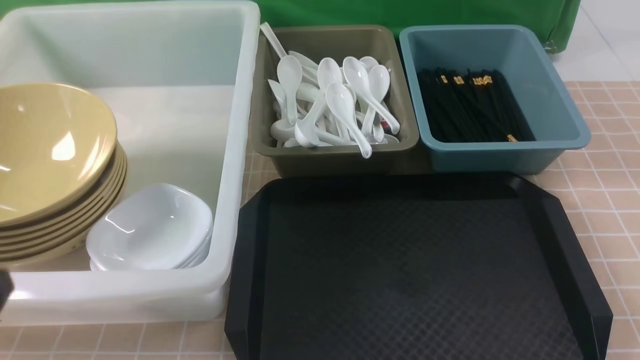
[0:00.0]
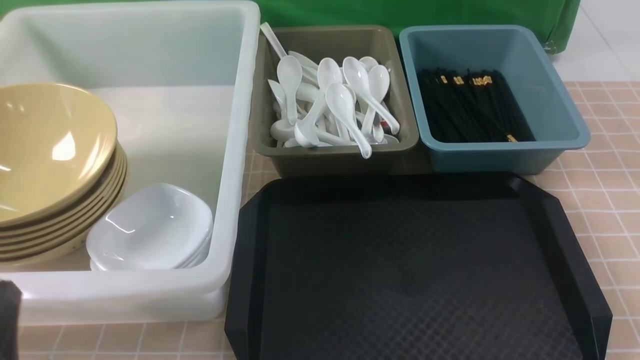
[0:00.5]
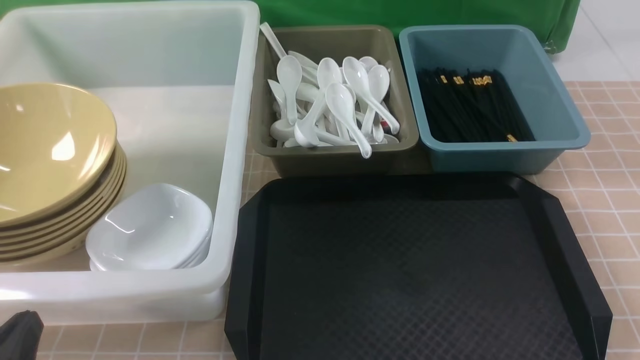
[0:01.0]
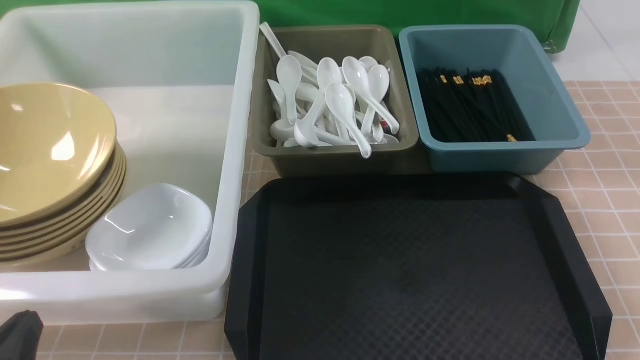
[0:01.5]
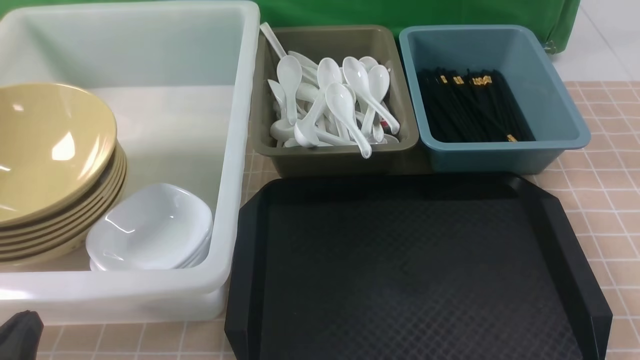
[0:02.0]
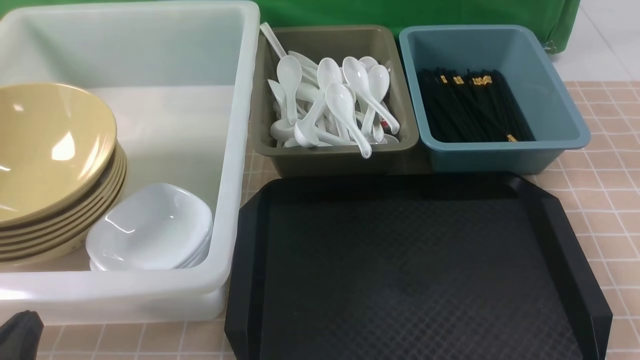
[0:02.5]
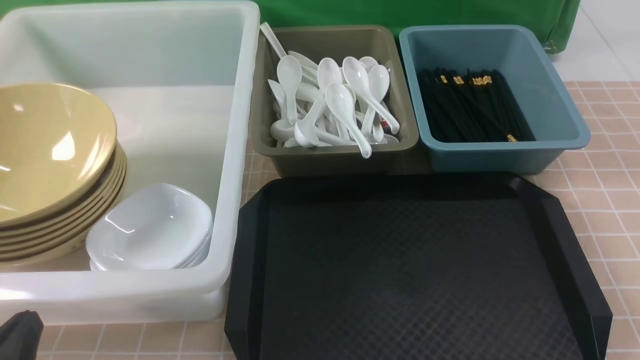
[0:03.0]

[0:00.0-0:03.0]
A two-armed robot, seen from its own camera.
Task of the whole recording: on brown table put chopsticks spoon bowls plates into blue grey white boxes.
0:00.0 to 0:01.5: The left gripper is displaced downward by some 10 cm.
0:01.5 to 0:03.0: Both grippers stay about where they are.

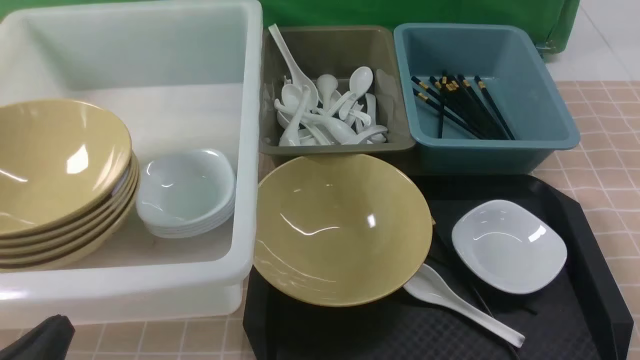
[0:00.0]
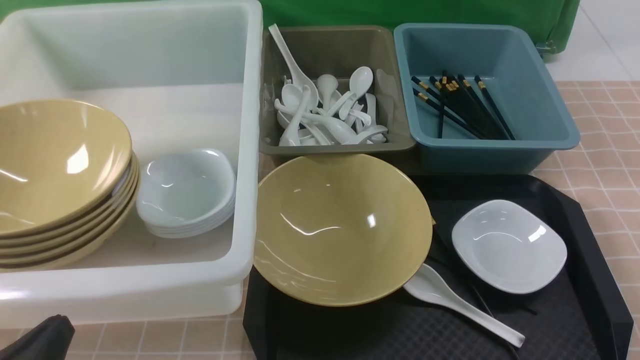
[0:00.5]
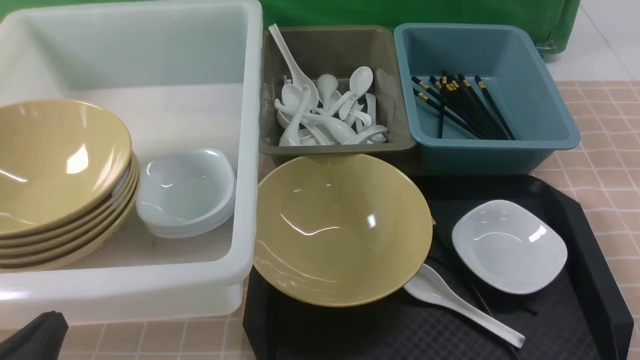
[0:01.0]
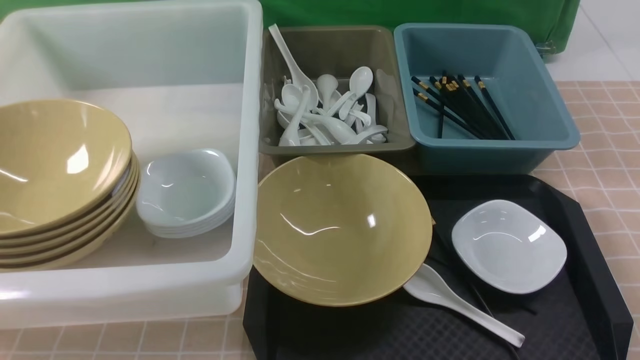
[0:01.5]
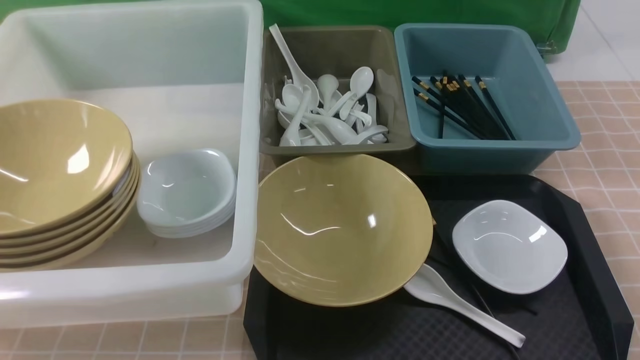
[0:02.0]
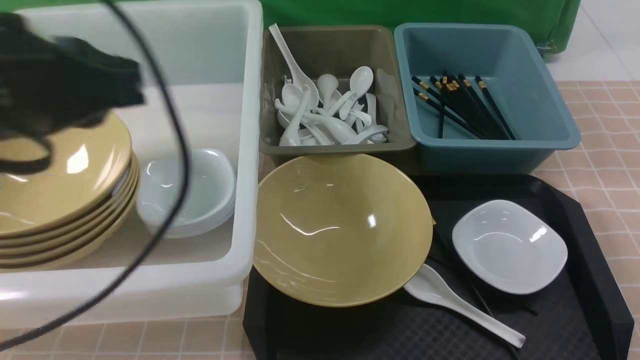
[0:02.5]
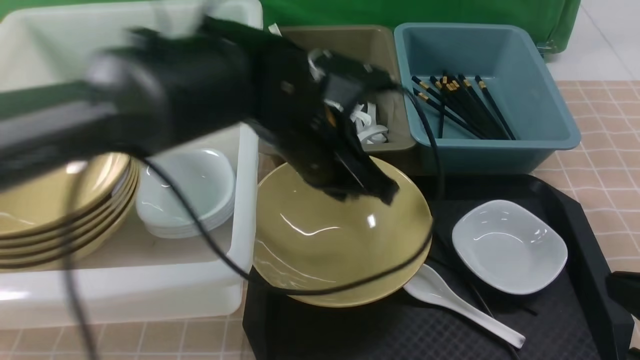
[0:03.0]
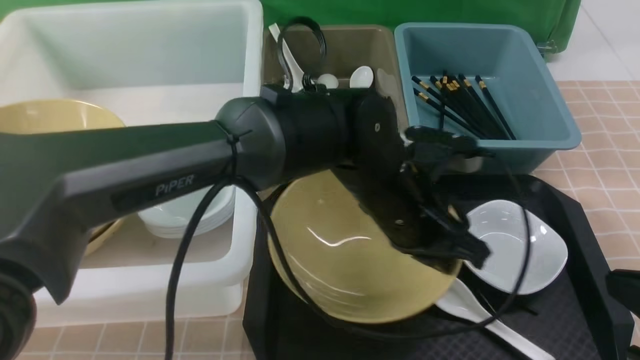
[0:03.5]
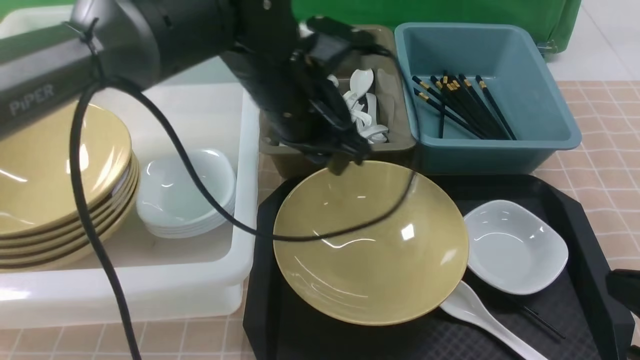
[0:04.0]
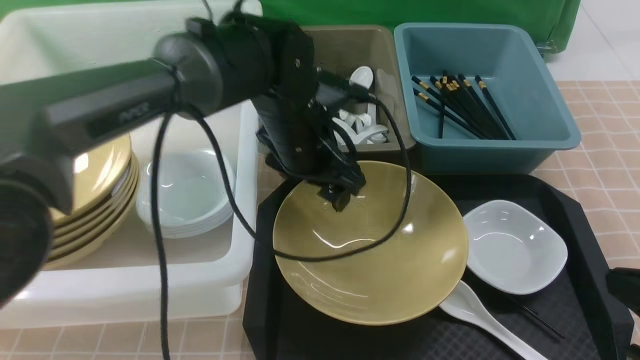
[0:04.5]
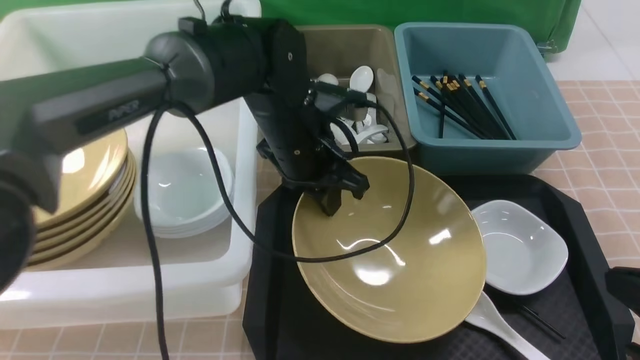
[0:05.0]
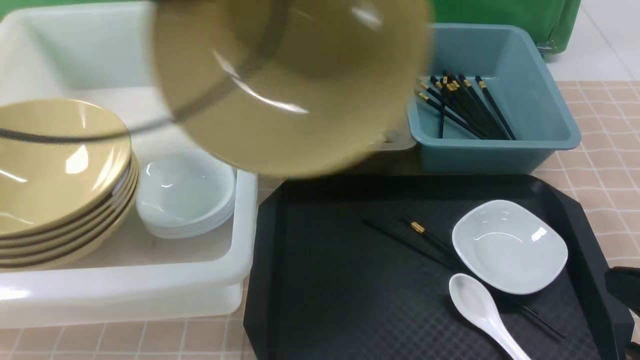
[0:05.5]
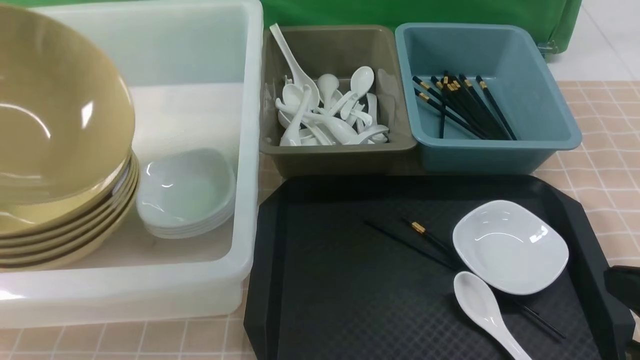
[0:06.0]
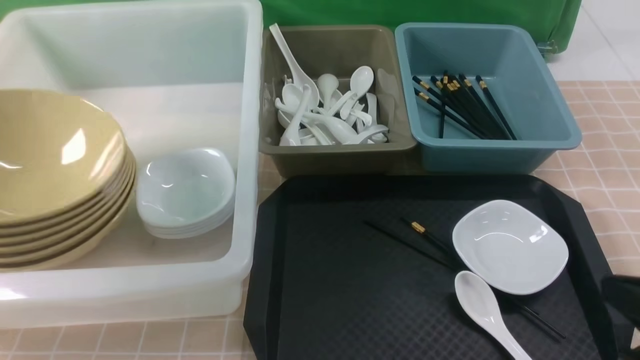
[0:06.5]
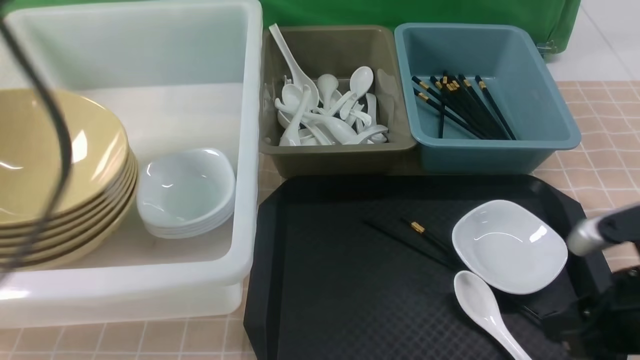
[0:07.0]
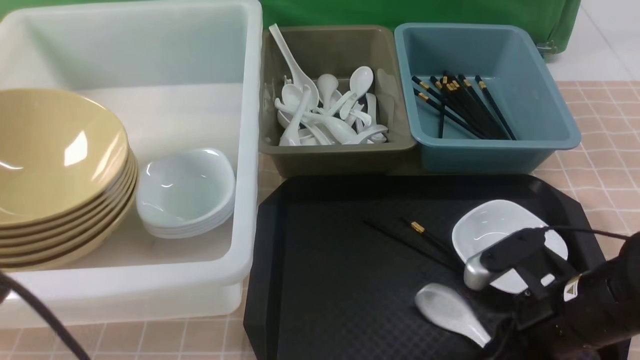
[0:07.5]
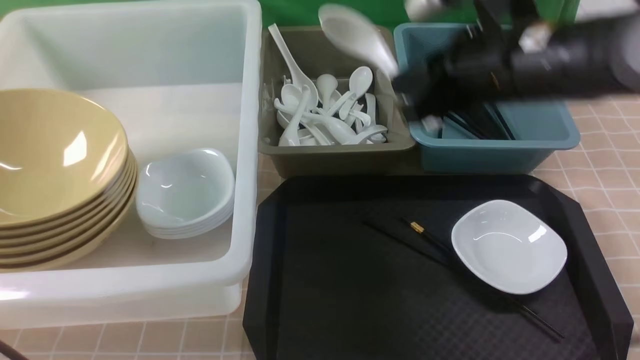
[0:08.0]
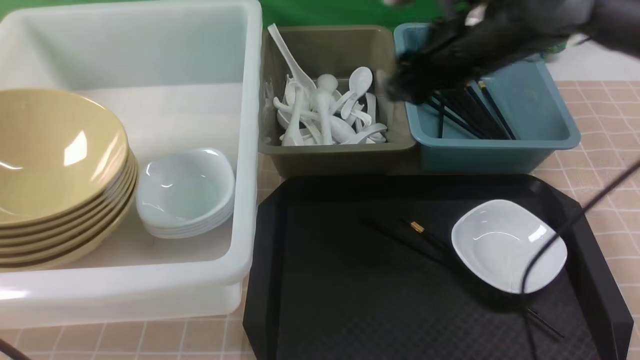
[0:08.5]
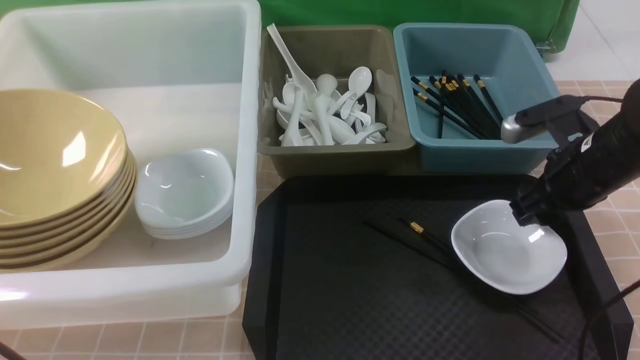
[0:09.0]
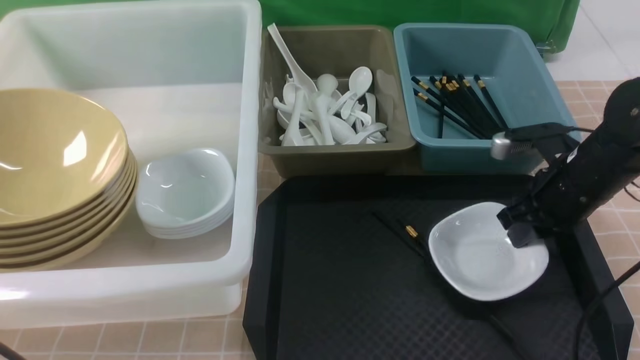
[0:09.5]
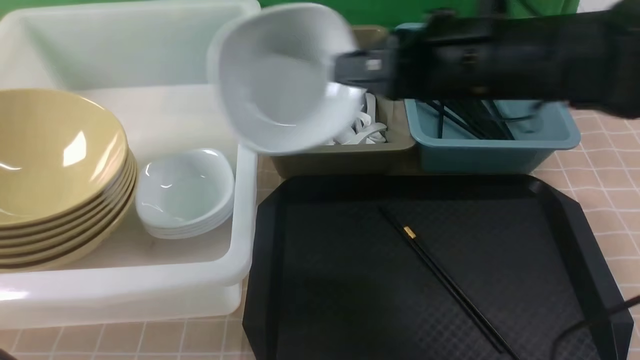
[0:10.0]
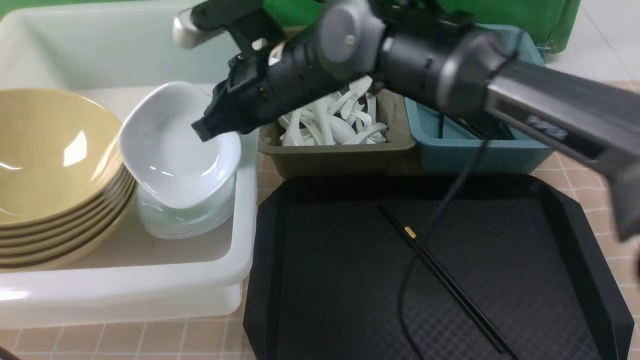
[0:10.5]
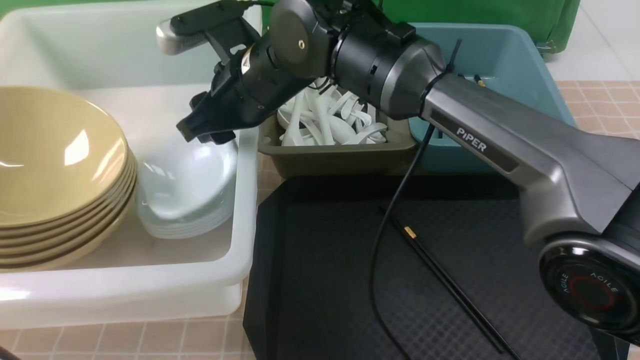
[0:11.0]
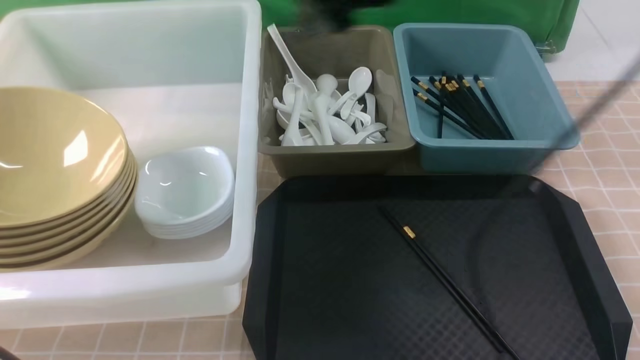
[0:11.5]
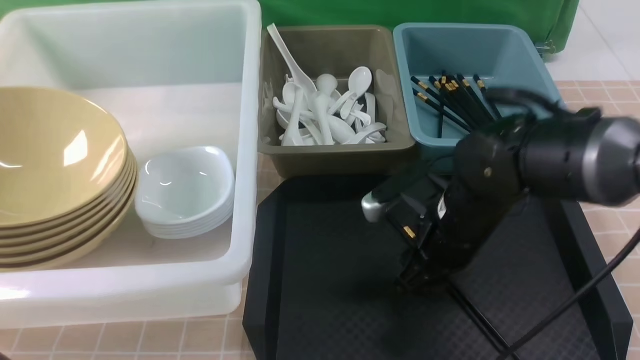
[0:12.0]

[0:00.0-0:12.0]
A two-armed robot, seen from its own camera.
Task of the whole recording: on brown table put chopsticks spoon bowls plates into blue grey white boxes.
Step, 0:00.0 to 0:04.5: use the left arm to grab the yellow noodle bowl on the left.
Step, 0:05.0 to 0:06.5: use the left arm to put the noodle bowl into the large storage box on the left.
Step, 0:07.0 to 0:07.5: use the right arm to grab the soup spoon in the middle.
Step, 0:08.5 to 0:09.5: use the right arm to grab the plate.
Step, 0:10.0 to 0:11.0: use the right arm to put the plate into the large storage box on the left.
0:00.0 to 0:02.0: The left gripper moves upward, roughly 20 cm.
0:02.0 to 0:04.0: The right gripper is displaced forward and downward by some 10 cm. Meanwhile the left gripper heads forward and to the right, covering approximately 35 cm, and opens its fingers.
0:04.0 to 0:06.0: The left gripper travels to the left by roughly 35 cm, and closes its fingers.
0:06.0 to 0:08.0: The right gripper heads forward and to the left, covering approximately 25 cm, and opens, then closes again; the left gripper is displaced backward, to the right and downward by approximately 20 cm, and opens and closes again.
0:08.0 to 0:10.0: The right gripper reaches approximately 15 cm to the right, then returns, and opens, then closes once more.
0:10.0 to 0:12.0: The right gripper heads downward, covering roughly 15 cm, and opens up.

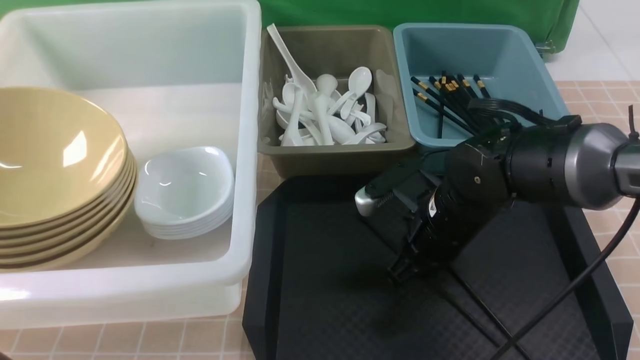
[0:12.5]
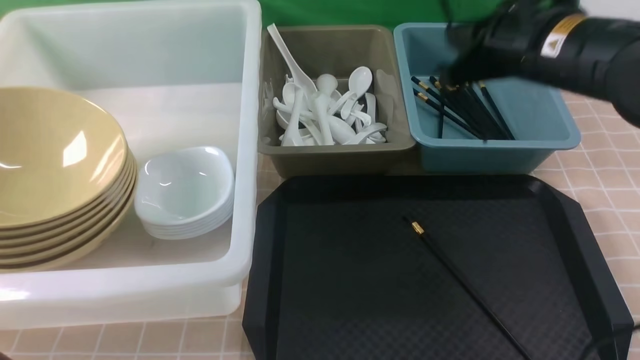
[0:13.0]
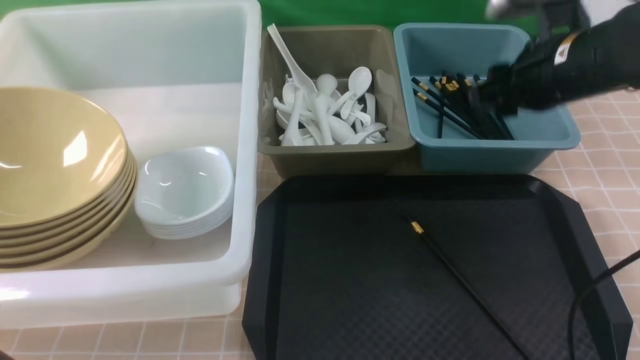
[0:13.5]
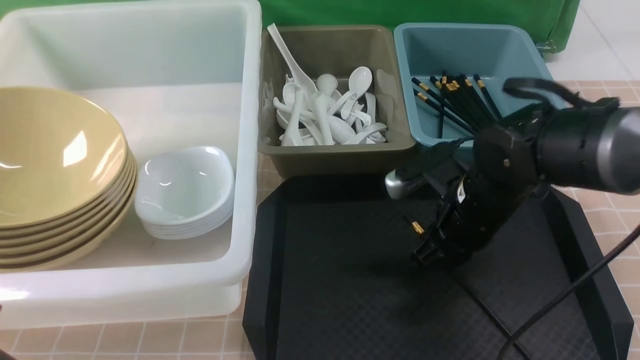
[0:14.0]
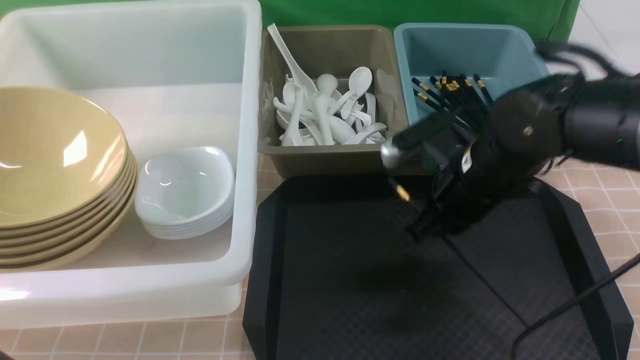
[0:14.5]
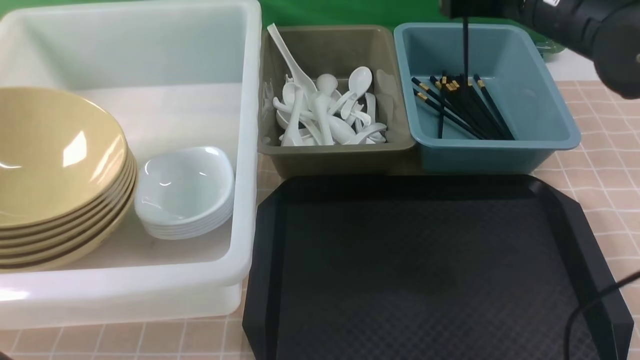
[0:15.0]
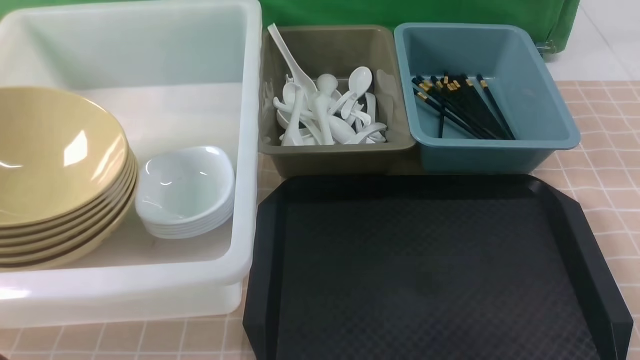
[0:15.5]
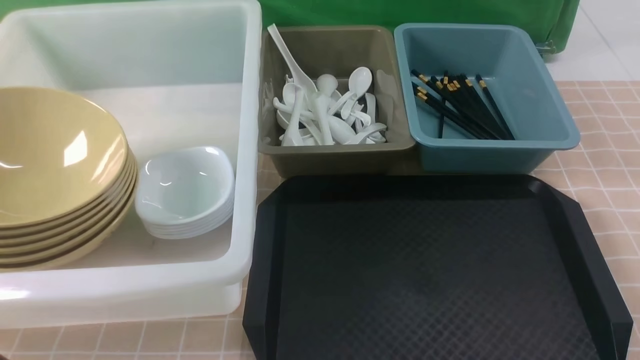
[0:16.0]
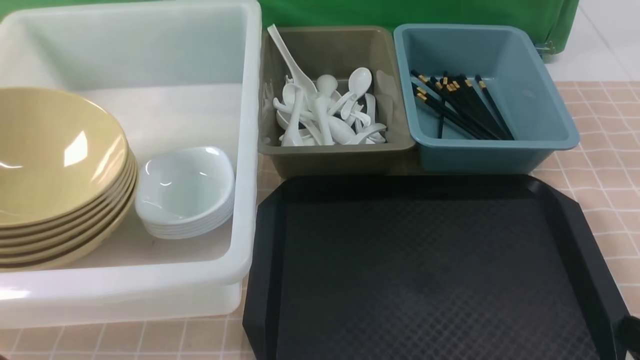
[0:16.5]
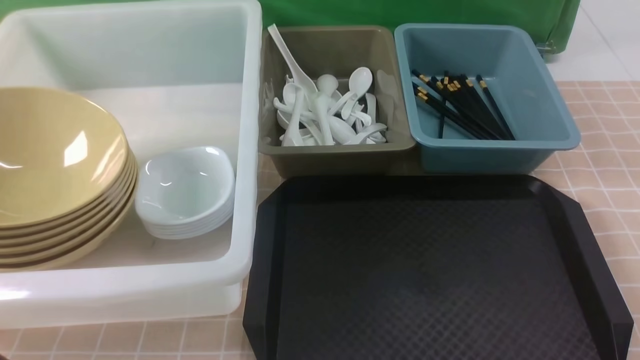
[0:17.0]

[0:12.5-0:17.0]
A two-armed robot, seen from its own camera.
Task of the whole recording: on brown table put chopsticks spoon bowls plates into blue grey white boxes.
Step, 0:13.5 to 0:14.0: use the right arm to grab a chopstick.
Step, 0:14.5 to 0:15.0: use the right arm to put a chopstick into the small storage box on the right.
0:12.5 to 0:14.5: The right gripper moves up and down over roughly 15 cm, changing direction 2 times, and opens and closes again.
0:14.5 to 0:17.0: The right gripper goes about 30 cm backward and to the right.
